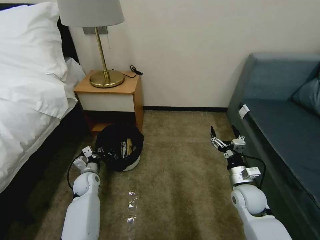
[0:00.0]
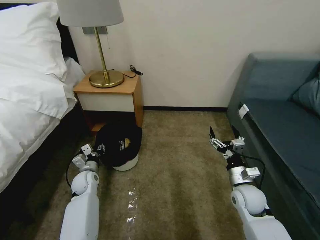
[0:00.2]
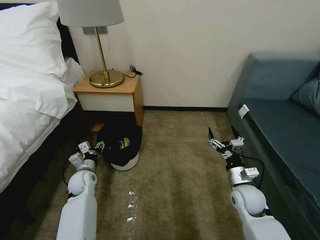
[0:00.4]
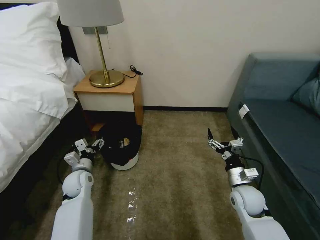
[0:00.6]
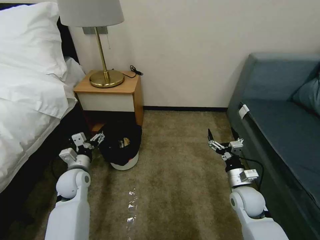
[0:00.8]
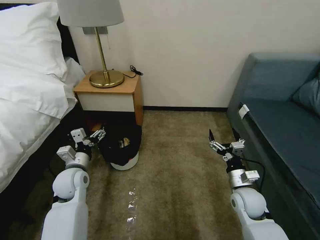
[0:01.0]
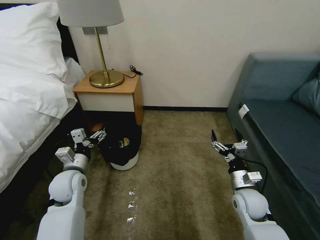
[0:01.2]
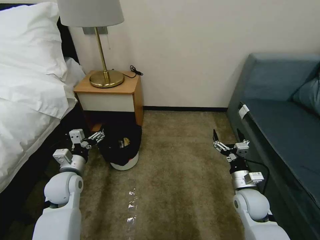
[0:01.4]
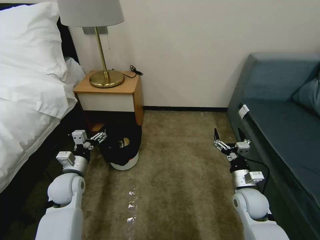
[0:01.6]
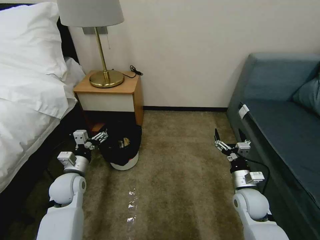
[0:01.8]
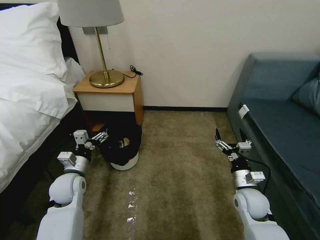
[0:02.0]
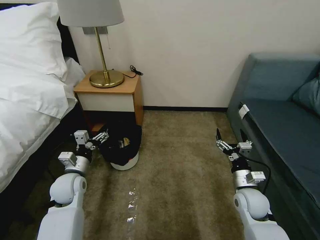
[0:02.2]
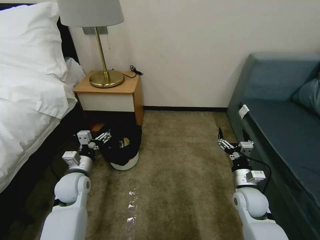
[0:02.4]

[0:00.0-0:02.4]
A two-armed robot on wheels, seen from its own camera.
Task of the whole recording: Pick up the trash bin, then pick up the garbage on the floor and place it into the trash bin.
0:00.0 to 0:01.2: The left gripper travels upward and backward by some 15 cm, and opens up.
0:01.2 to 0:02.4: The grippers make only small movements.

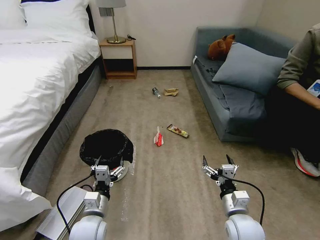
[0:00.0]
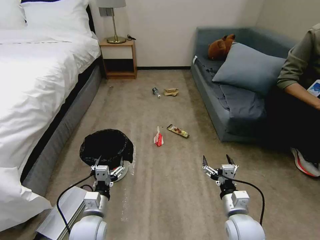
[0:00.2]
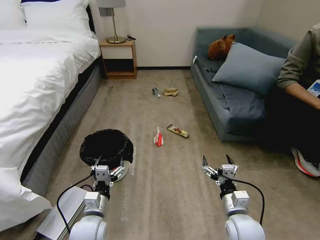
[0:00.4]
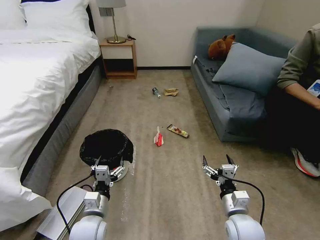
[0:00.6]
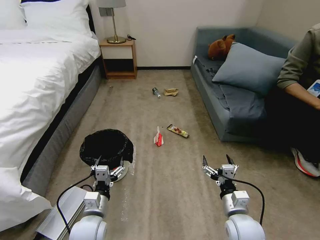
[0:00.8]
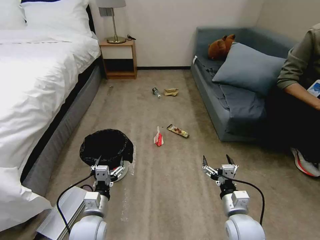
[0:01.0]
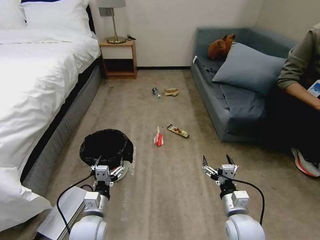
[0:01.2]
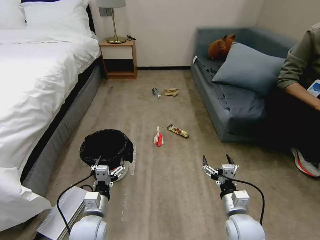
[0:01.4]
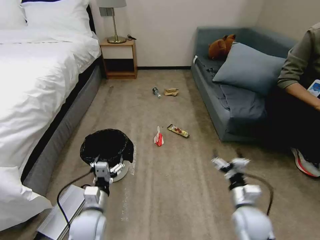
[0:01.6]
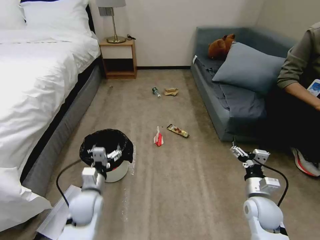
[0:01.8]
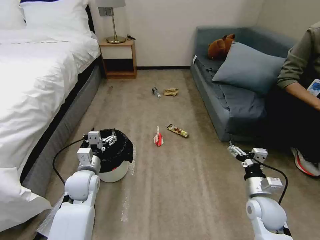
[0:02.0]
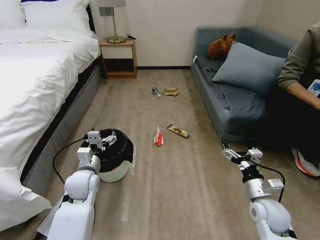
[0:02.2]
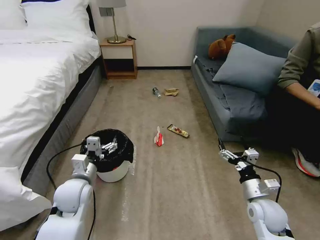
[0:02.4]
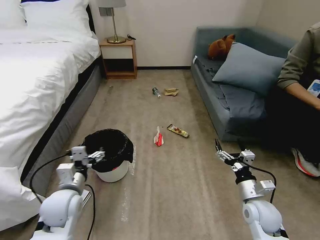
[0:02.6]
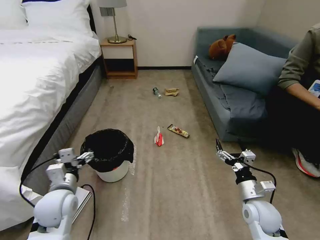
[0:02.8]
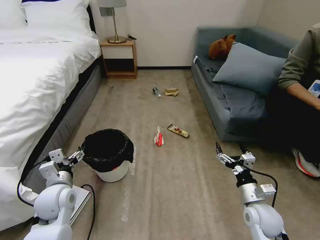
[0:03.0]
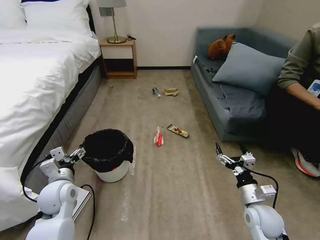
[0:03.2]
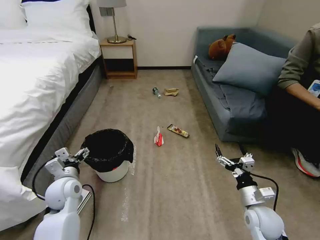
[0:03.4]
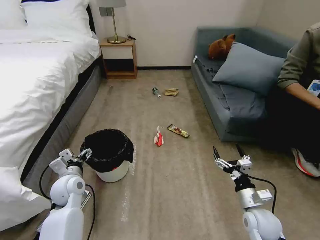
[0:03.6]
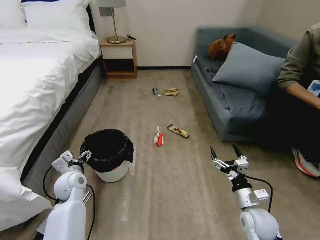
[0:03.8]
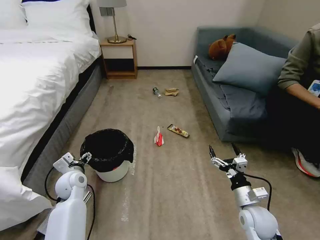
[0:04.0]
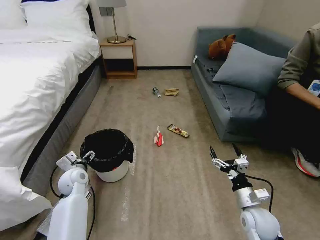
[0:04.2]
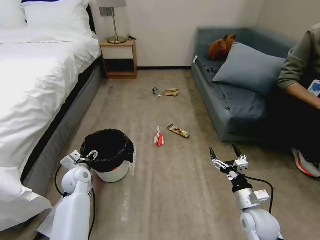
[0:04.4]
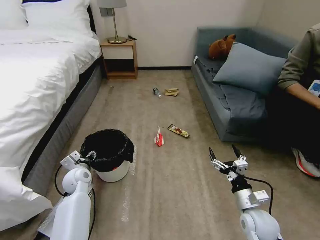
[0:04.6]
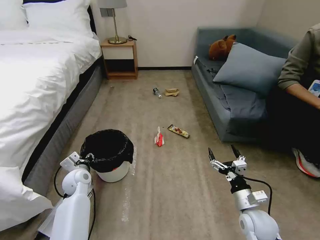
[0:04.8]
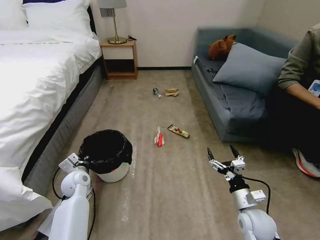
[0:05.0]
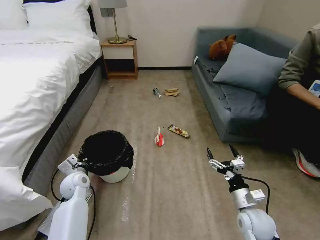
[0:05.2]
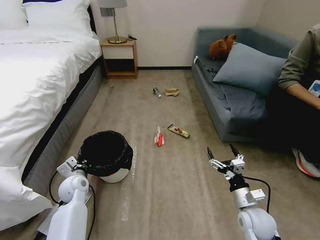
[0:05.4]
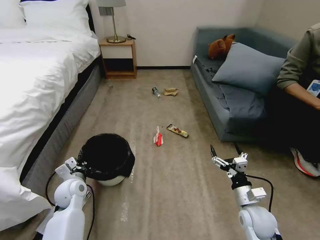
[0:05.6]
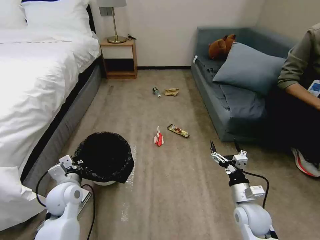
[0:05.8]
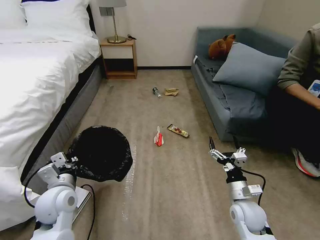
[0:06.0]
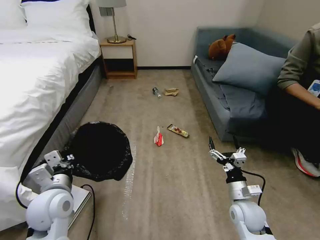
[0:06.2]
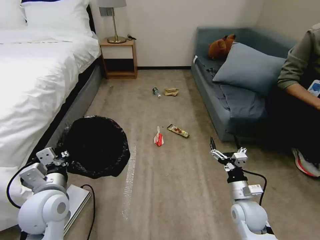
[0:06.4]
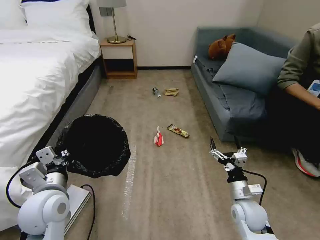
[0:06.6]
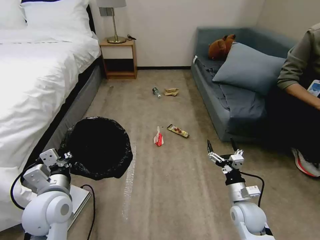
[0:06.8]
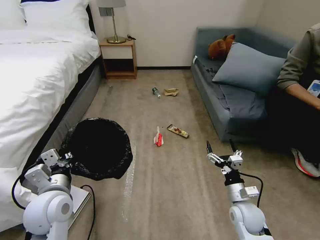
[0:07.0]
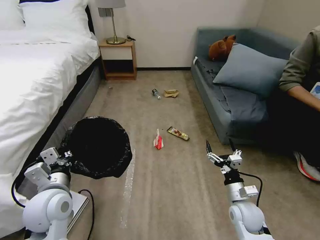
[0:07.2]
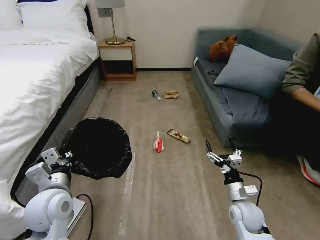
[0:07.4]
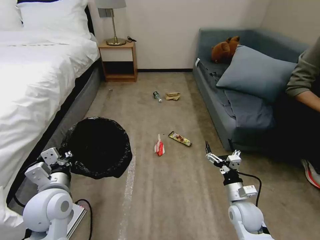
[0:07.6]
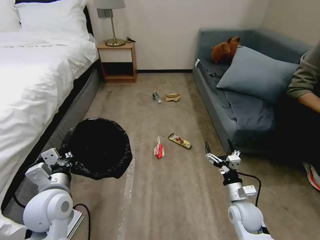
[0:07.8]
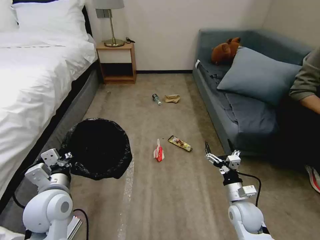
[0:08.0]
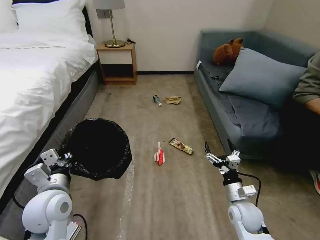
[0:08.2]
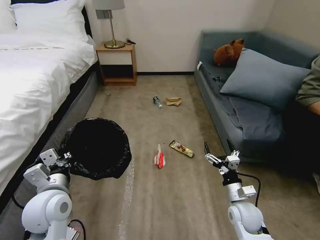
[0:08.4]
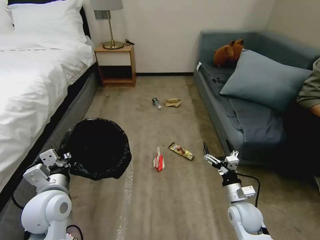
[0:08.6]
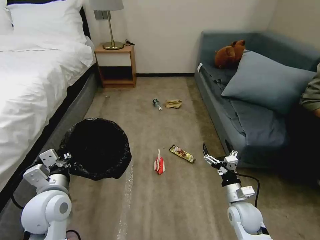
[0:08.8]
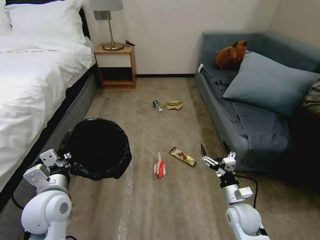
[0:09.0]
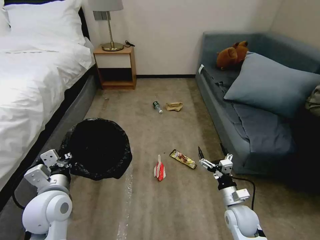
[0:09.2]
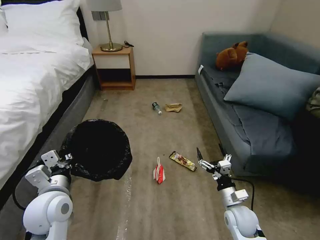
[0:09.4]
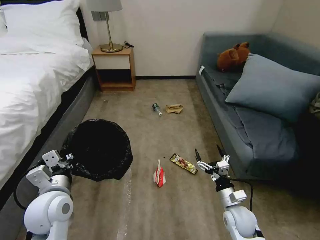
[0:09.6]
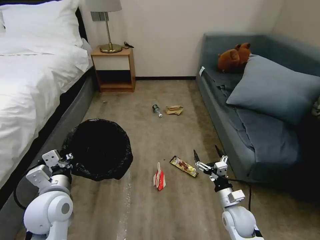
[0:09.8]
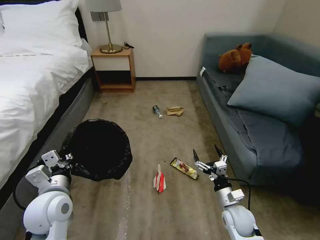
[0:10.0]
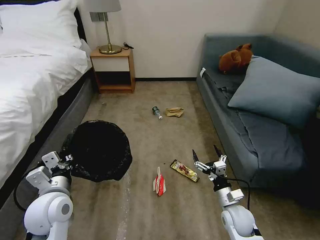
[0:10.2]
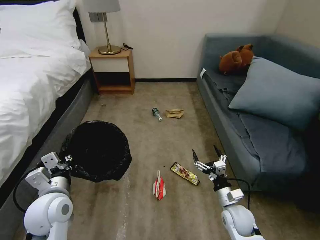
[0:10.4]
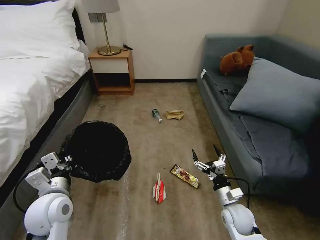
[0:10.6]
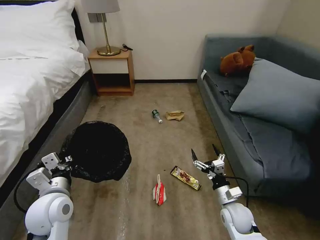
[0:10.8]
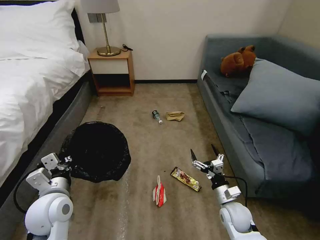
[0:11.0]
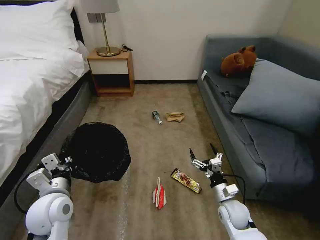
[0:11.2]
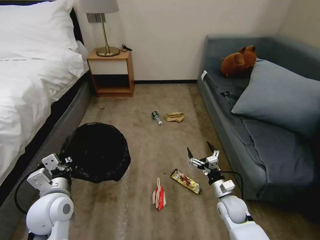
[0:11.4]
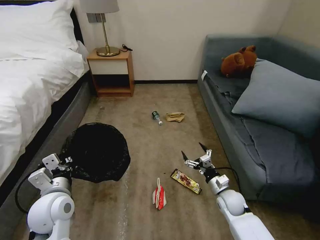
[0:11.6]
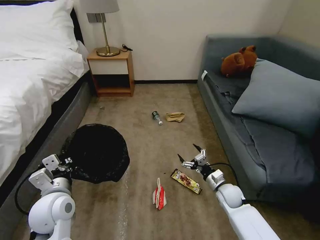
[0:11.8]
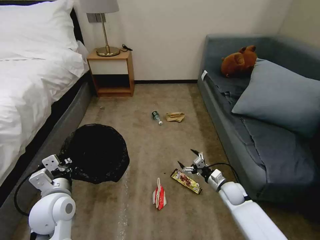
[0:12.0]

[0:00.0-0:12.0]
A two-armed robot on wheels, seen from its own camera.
Task of the whole recording: Pick up the trash bin, then pick up the garbage on the floor and place it into the trash bin.
0:01.6 to 0:03.0: The left gripper moves to the left and upward, about 10 cm.
0:03.0 to 0:04.4: The left gripper heads forward and downward, covering roughly 15 cm.
0:04.4 to 0:06.0: The left gripper moves backward and upward, approximately 15 cm, and closes its fingers.
0:06.0 to 0:07.6: The left gripper ends up about 5 cm from where it was.
0:10.4 to 0:12.0: The right gripper shifts roughly 10 cm forward.

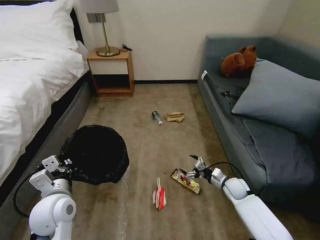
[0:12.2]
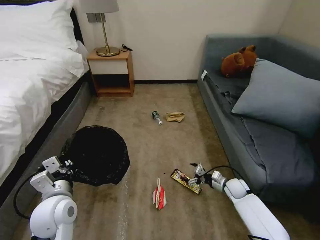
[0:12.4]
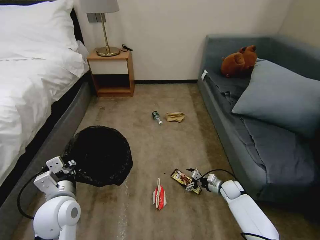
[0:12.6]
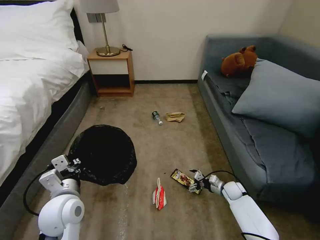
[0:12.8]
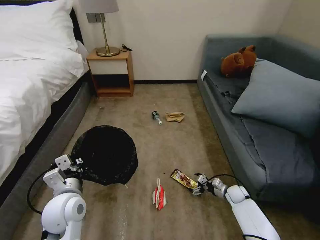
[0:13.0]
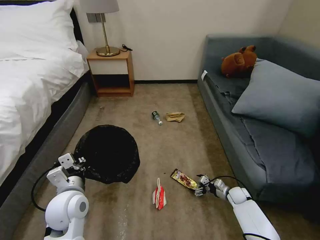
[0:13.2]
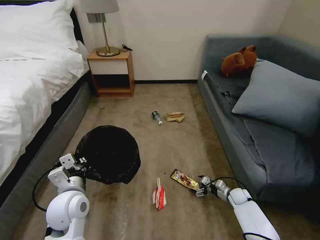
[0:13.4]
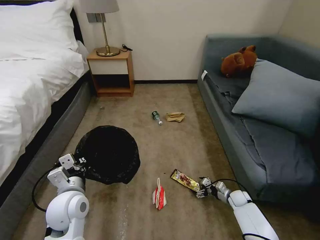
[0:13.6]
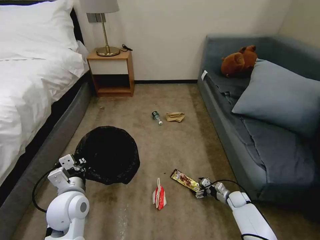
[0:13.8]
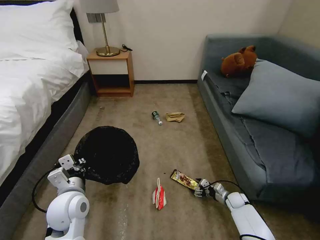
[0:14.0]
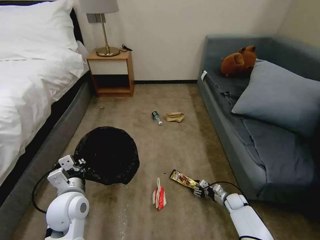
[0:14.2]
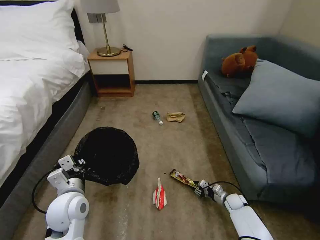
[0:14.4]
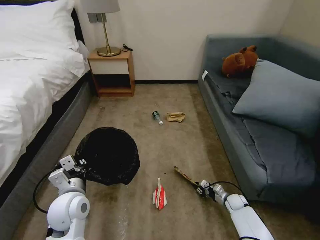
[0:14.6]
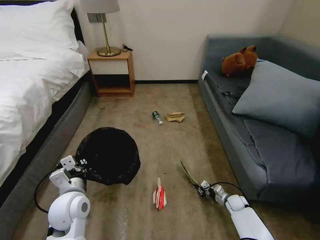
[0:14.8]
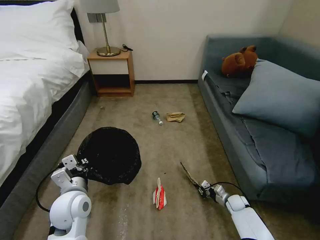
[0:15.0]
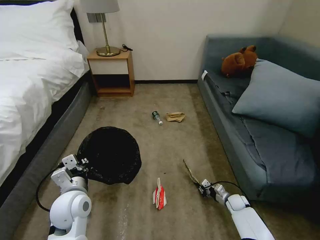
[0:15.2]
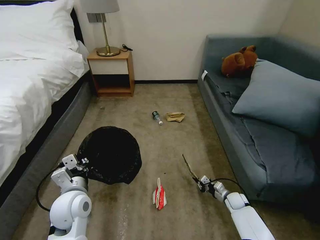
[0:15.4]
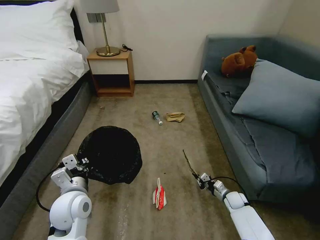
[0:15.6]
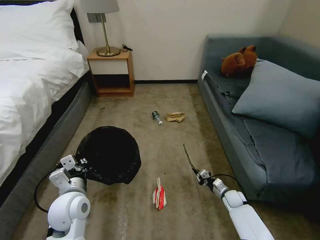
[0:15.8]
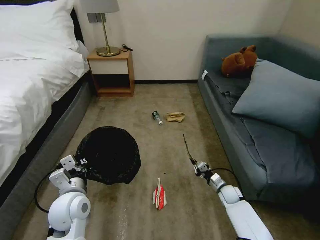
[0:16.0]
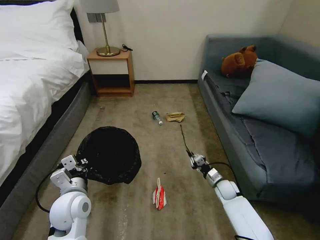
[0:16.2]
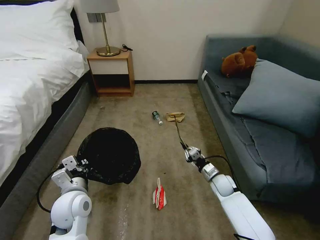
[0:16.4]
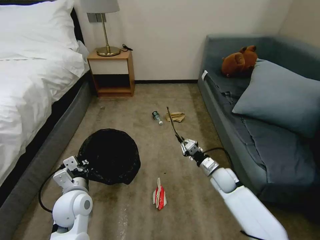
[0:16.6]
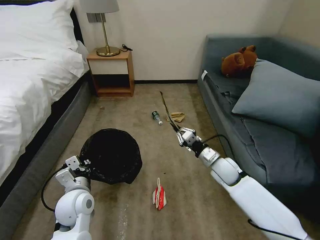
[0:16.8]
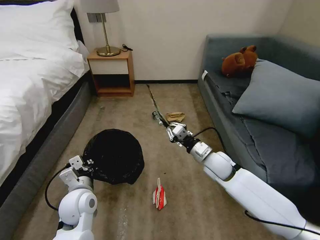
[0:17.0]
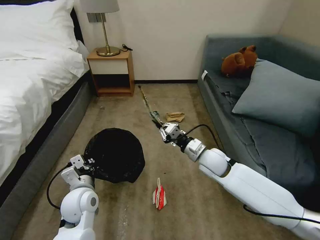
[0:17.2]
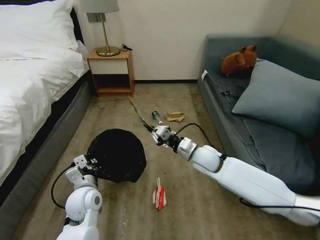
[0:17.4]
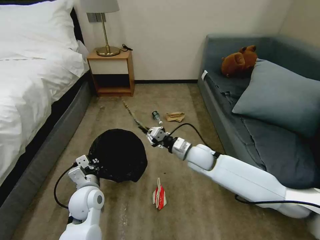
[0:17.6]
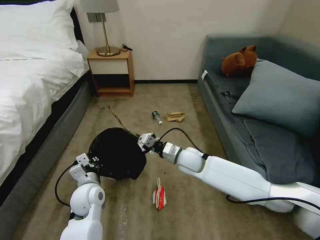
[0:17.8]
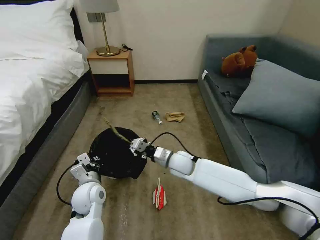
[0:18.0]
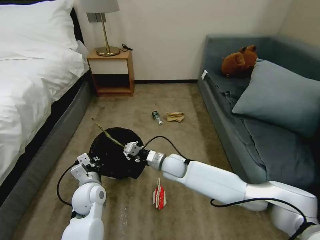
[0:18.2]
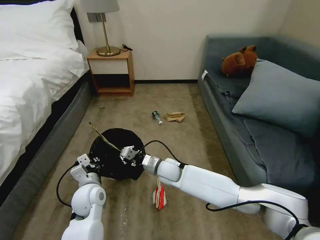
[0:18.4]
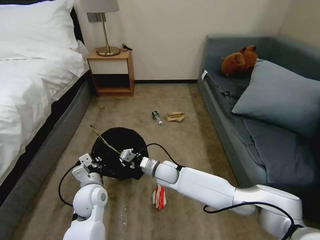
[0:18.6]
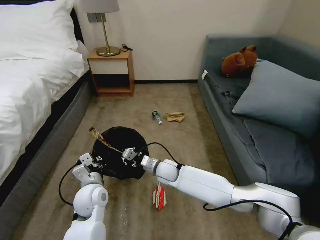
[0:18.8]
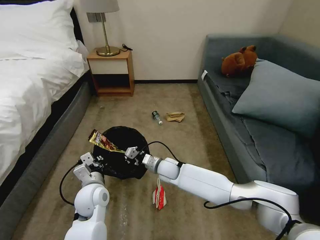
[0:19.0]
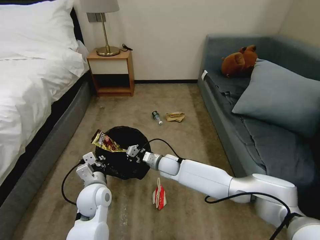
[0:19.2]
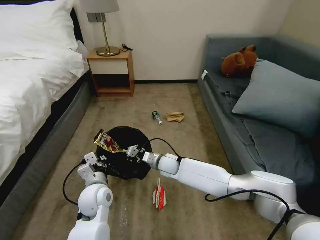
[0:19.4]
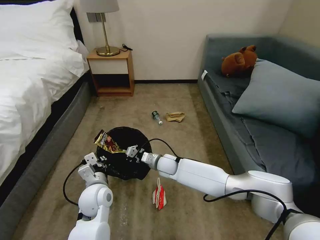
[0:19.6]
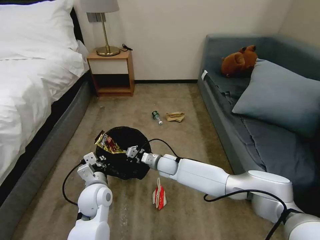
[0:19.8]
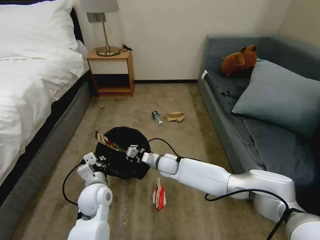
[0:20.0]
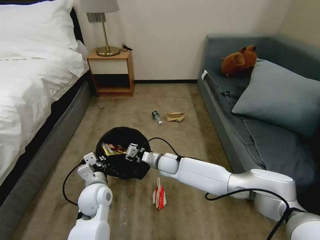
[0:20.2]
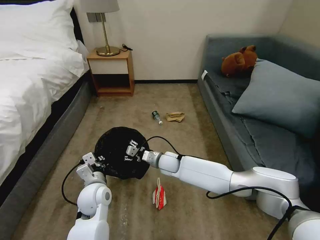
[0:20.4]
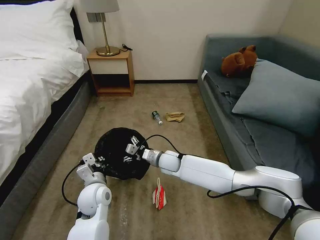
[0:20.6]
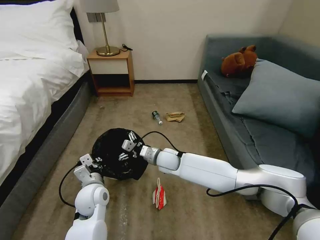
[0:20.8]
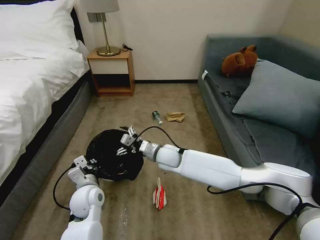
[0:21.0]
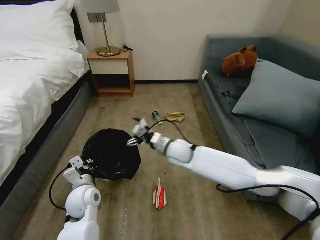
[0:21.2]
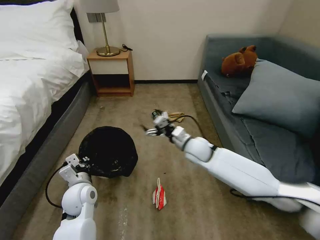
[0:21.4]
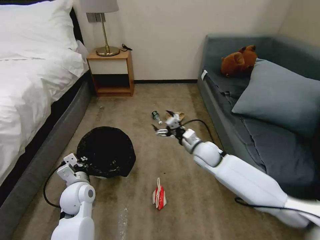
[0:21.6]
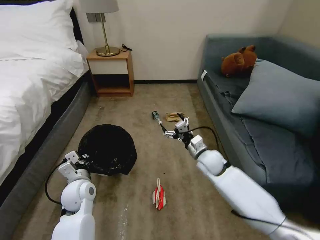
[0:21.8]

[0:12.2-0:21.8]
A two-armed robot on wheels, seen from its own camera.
Task of the whole recording: Pick up the trash bin, then pick up the garbage on the floor and place it into the trash bin.
0:12.2 to 0:13.8: The right gripper shifts about 10 cm downward.
0:13.8 to 0:15.4: The right gripper closes.
0:15.4 to 0:17.0: The right gripper is displaced upward and to the left by approximately 30 cm.
0:17.0 to 0:18.6: The right gripper shifts roughly 20 cm to the left and downward.
0:18.6 to 0:20.2: The right gripper opens up.
0:20.2 to 0:21.8: The left gripper goes approximately 5 cm to the left; the right gripper is displaced to the right and upward by some 15 cm, and opens its fingers.
